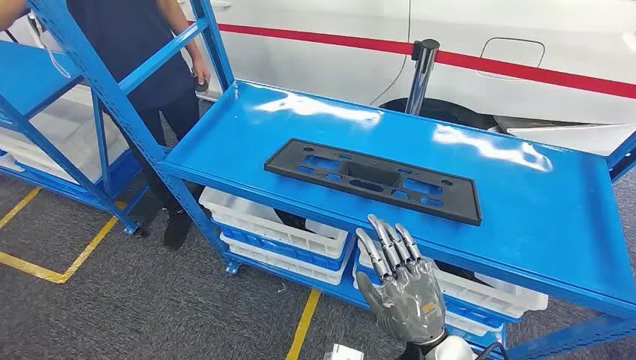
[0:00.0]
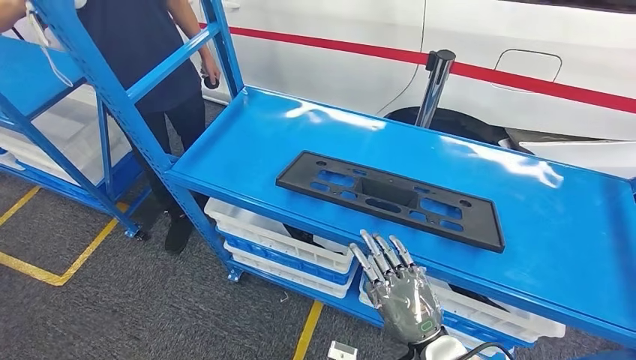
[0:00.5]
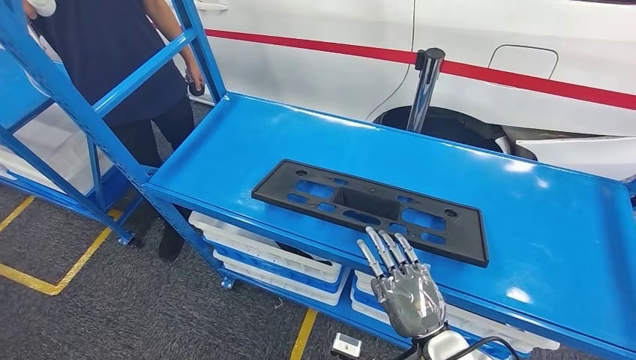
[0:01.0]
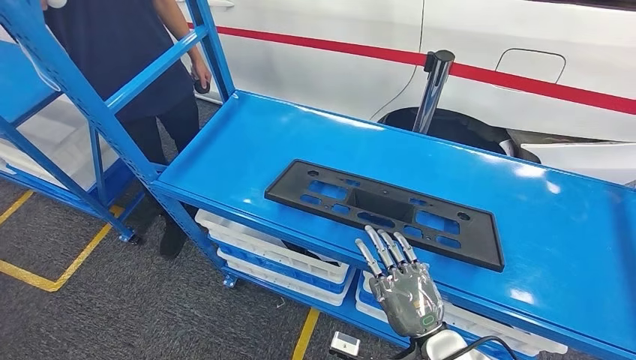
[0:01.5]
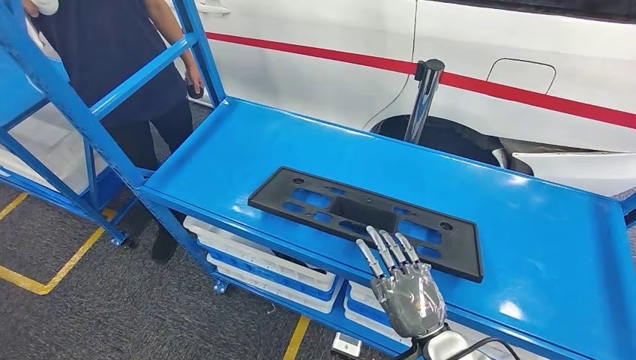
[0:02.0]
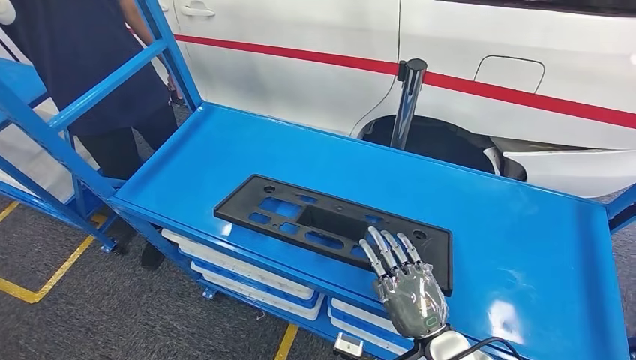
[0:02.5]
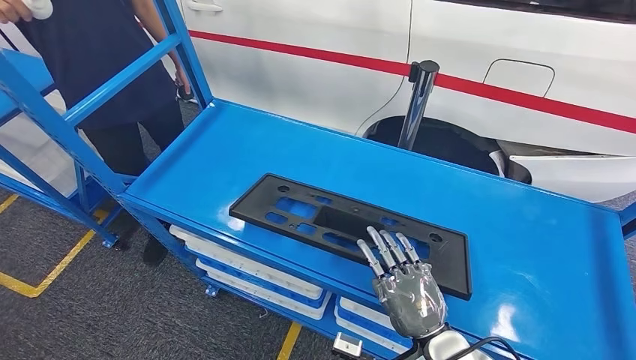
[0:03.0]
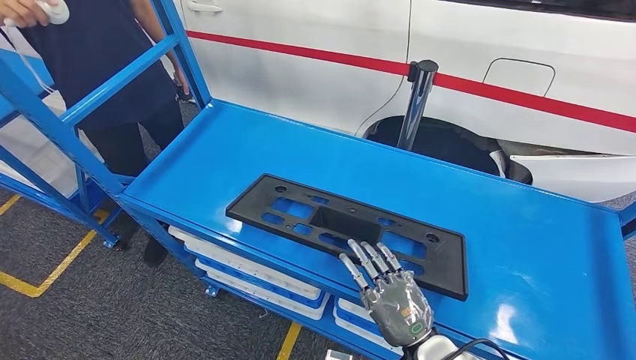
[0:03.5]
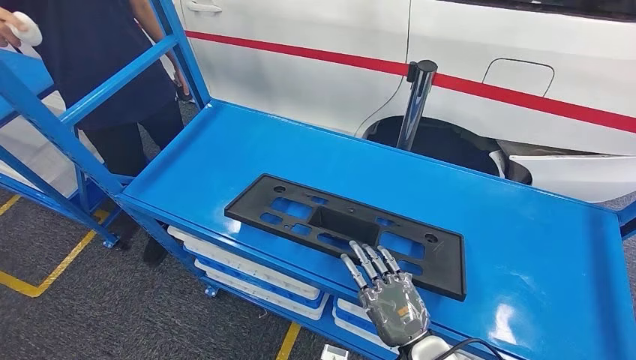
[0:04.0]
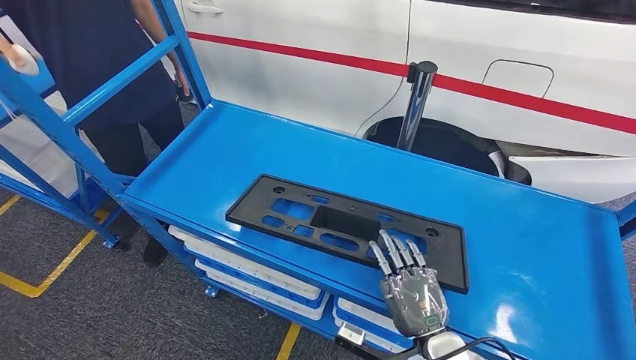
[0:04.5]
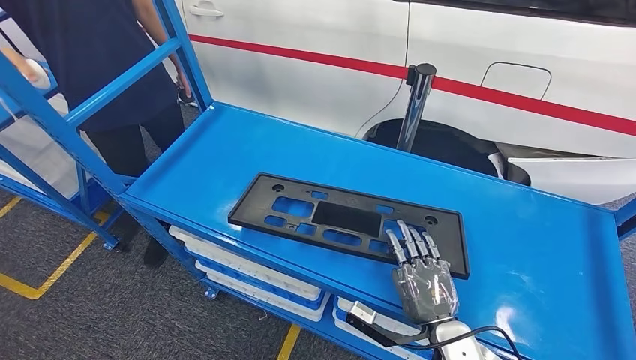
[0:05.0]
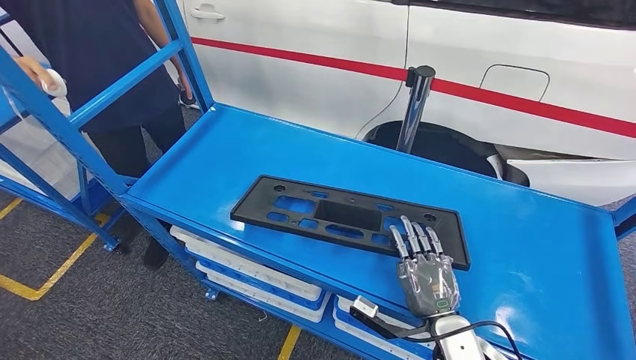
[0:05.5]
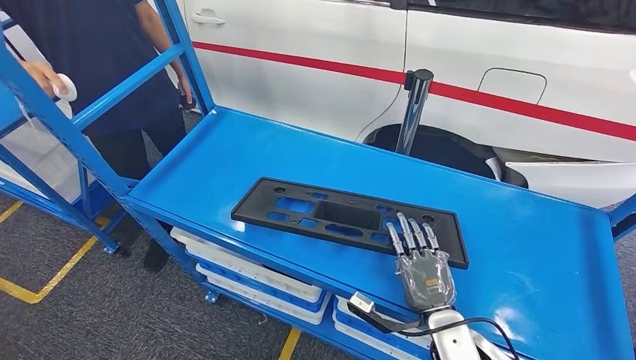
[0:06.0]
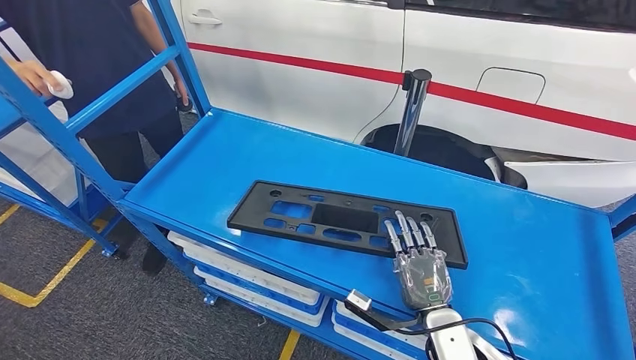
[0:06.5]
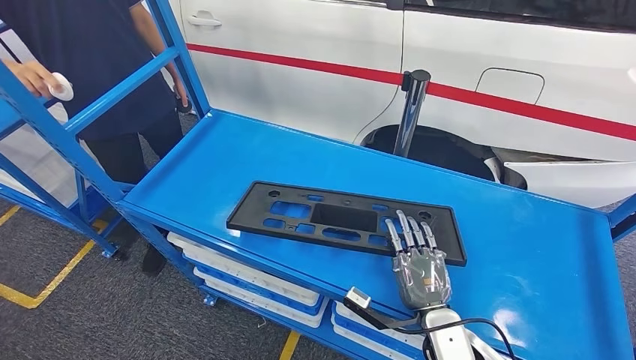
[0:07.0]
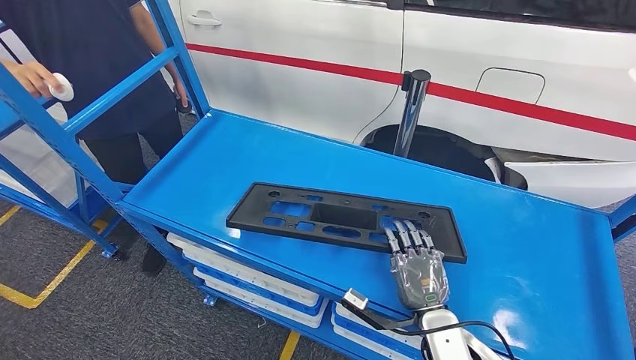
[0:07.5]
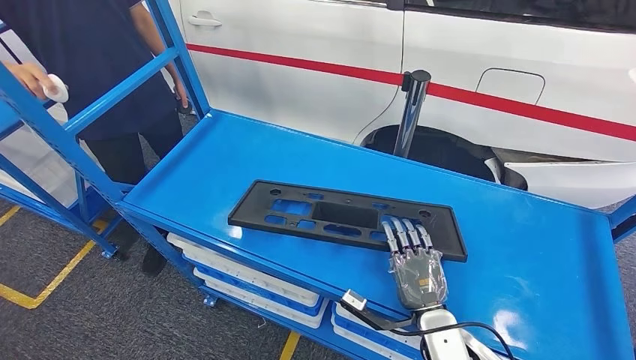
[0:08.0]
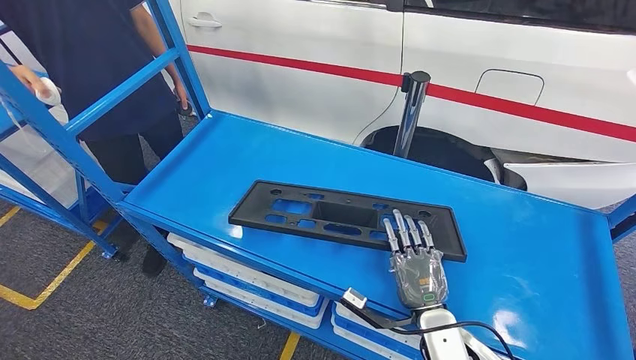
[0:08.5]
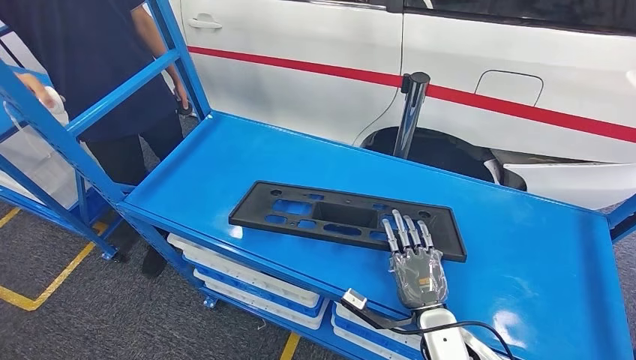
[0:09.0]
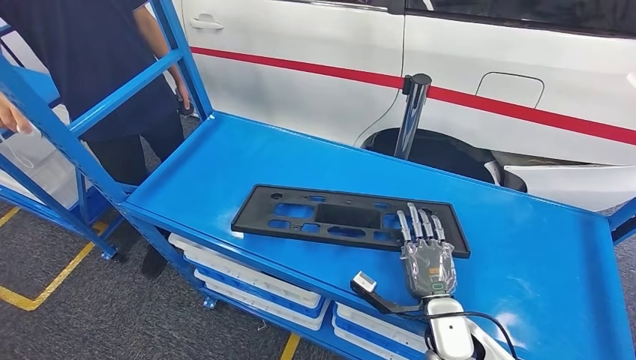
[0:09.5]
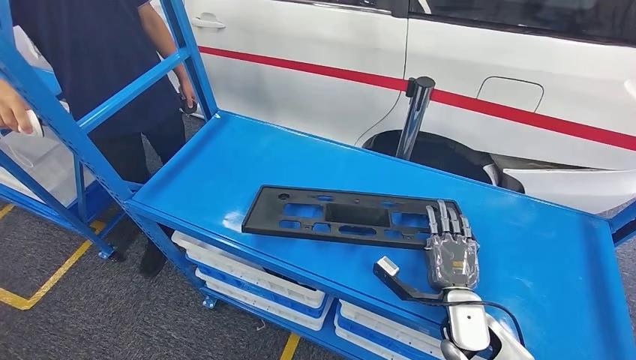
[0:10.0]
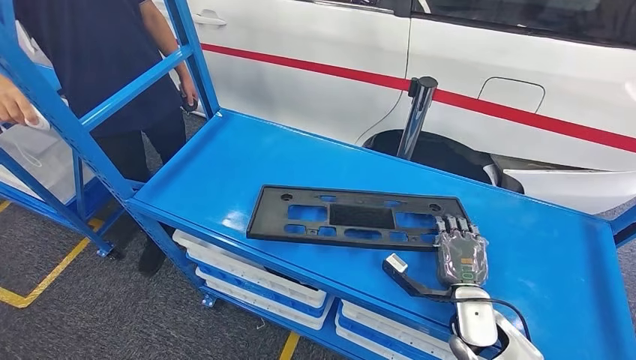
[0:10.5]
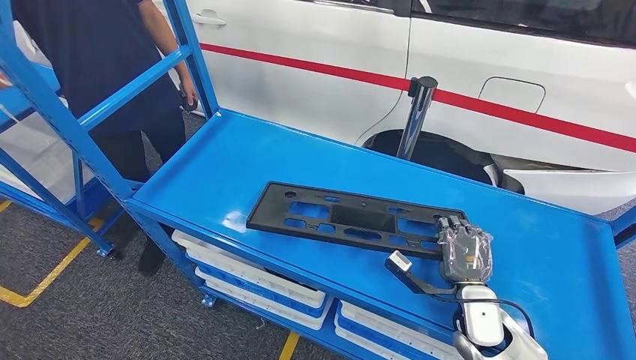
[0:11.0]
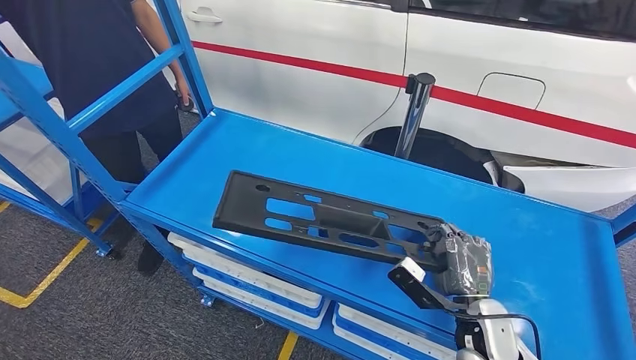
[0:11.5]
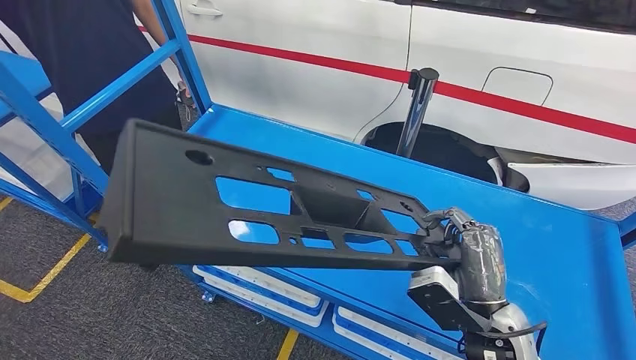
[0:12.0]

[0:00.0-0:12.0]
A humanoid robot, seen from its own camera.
0:06.0 to 0:08.0: There are only small adjustments of the hands.

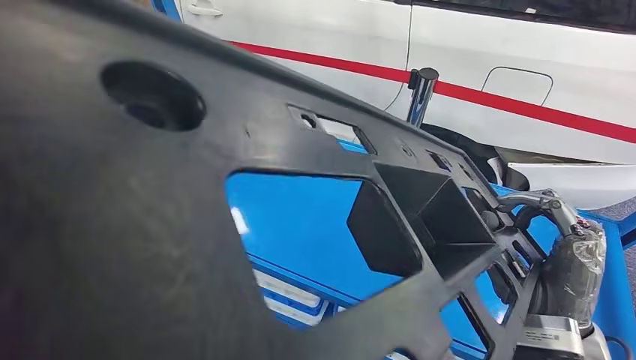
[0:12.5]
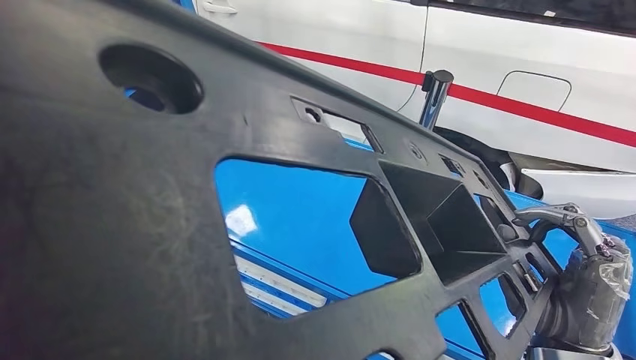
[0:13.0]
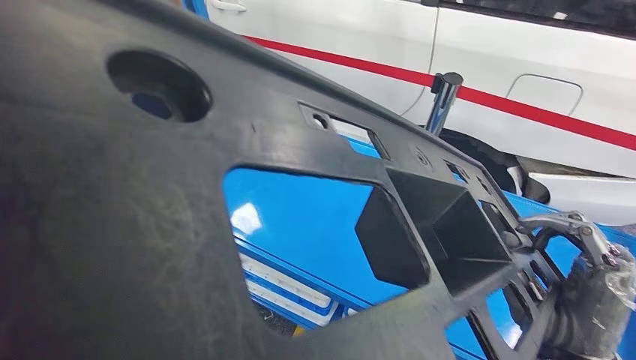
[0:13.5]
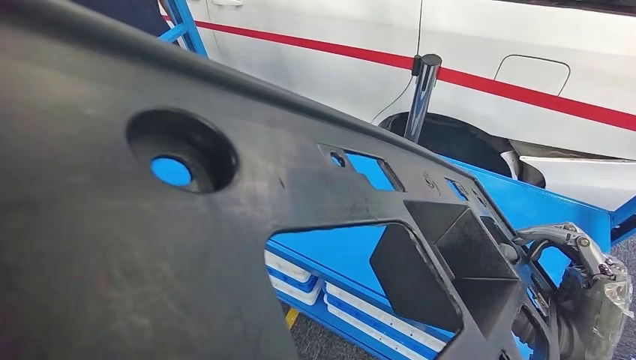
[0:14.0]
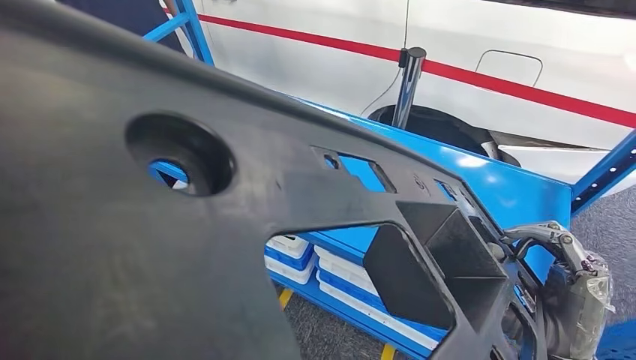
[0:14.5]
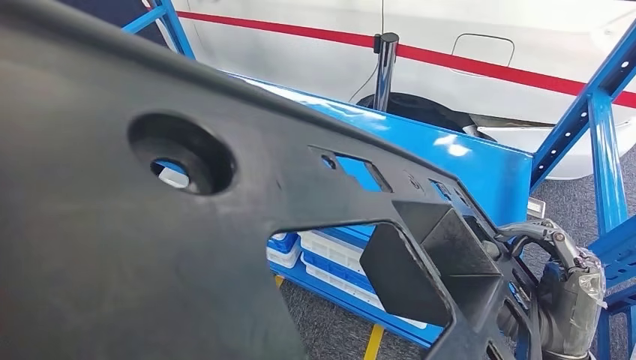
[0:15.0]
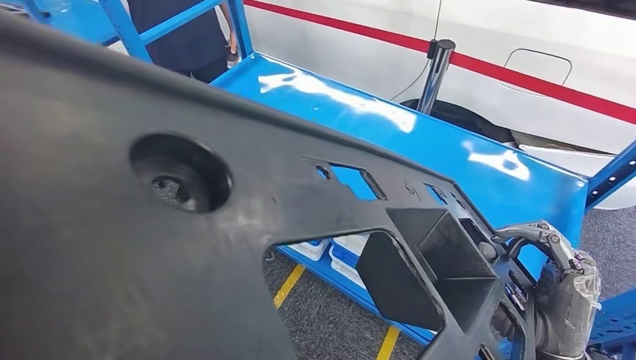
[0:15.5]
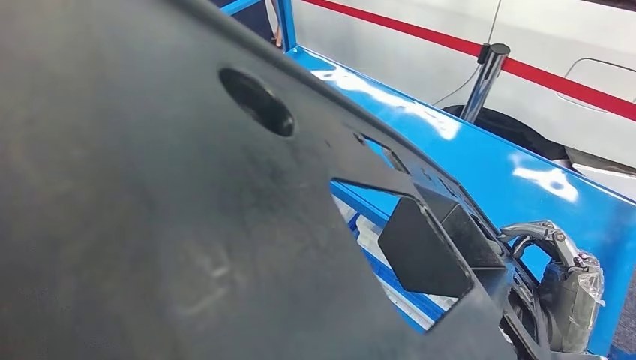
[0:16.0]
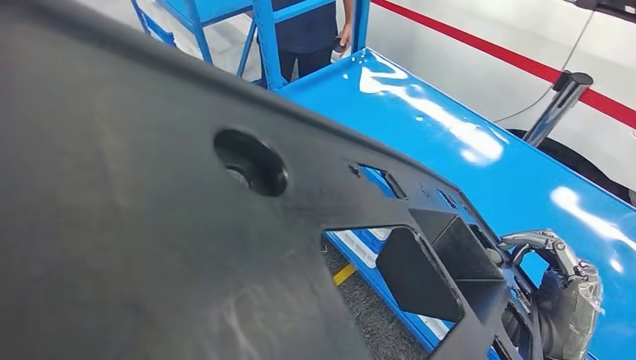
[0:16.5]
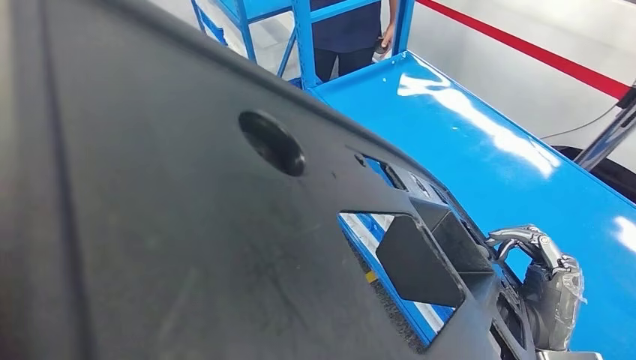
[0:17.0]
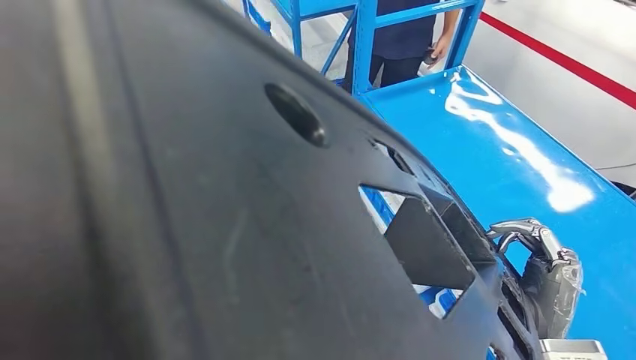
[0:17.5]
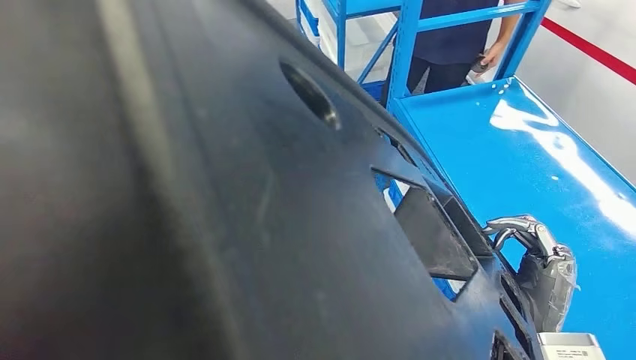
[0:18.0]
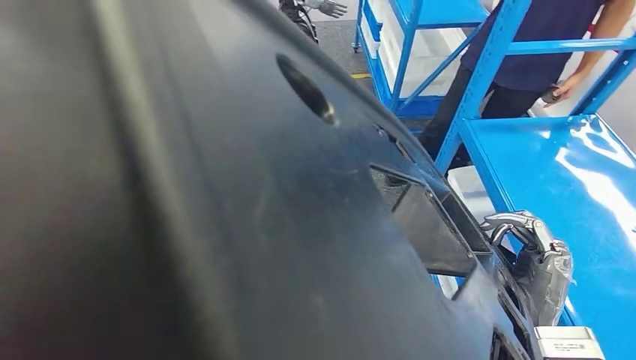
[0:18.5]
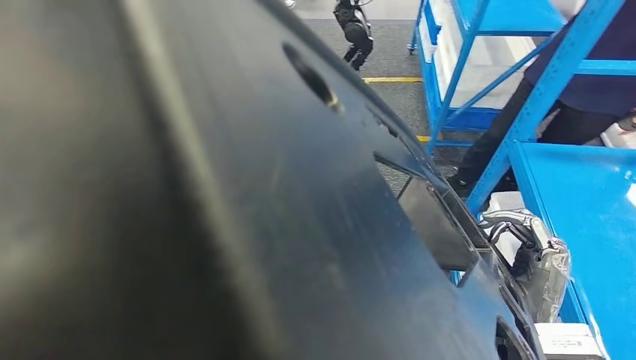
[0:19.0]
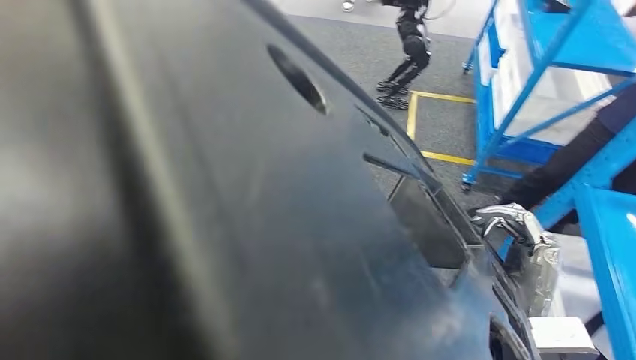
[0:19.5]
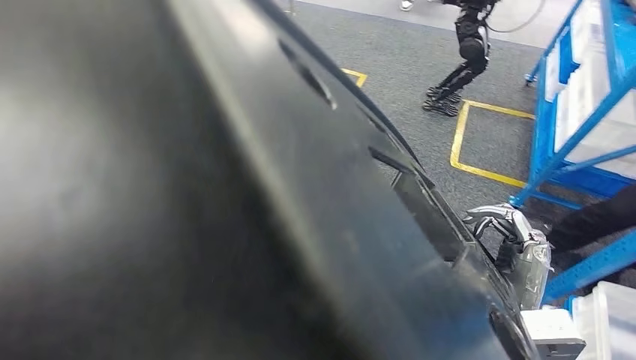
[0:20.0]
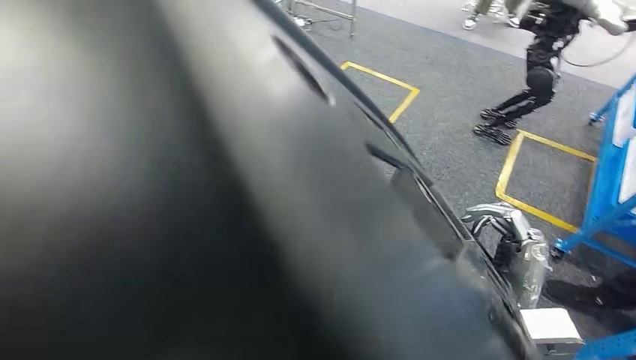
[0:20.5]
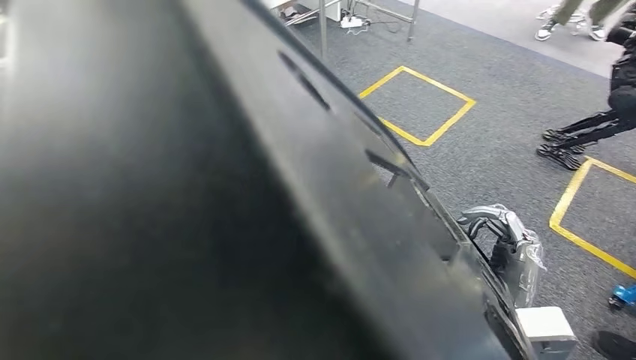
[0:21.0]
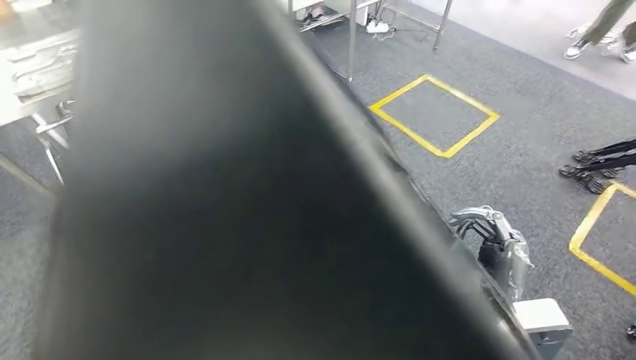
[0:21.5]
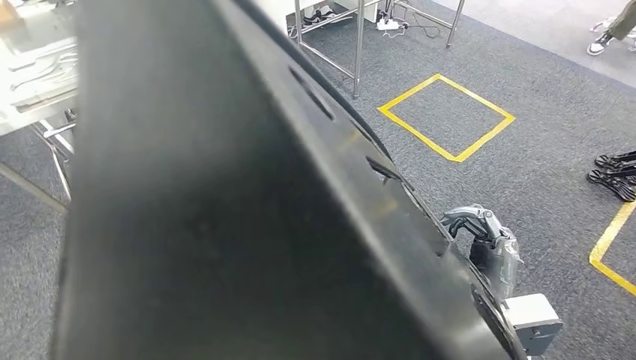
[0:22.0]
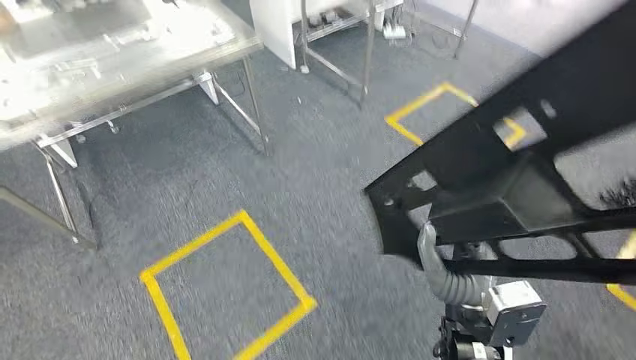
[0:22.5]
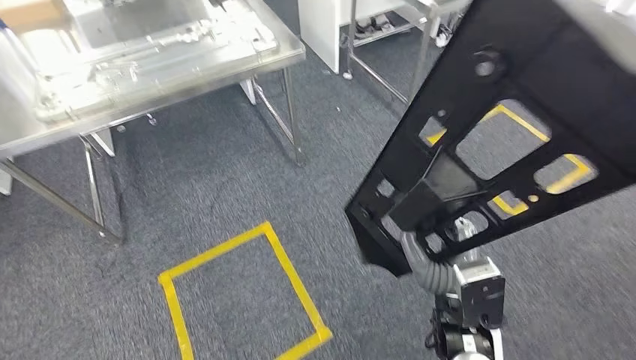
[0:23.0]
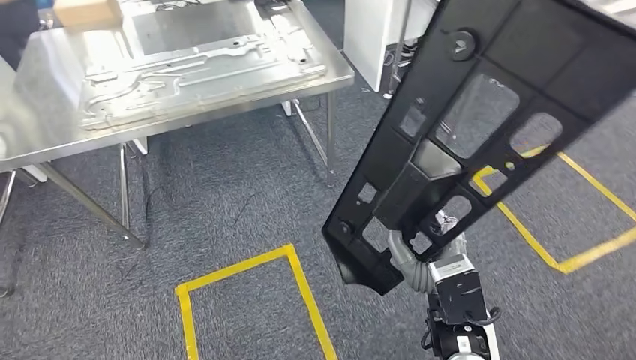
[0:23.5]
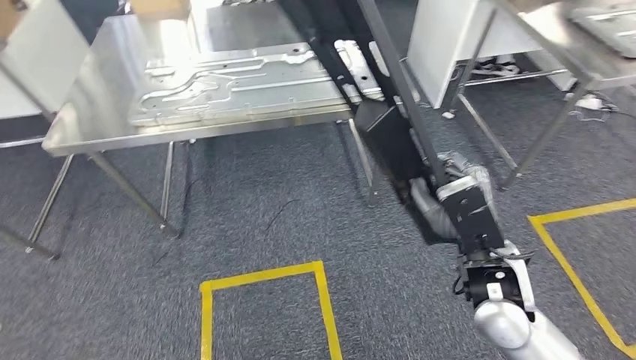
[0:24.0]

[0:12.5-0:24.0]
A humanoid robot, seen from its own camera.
Step, 0:12.5 to 0:15.0: Pick up the large material from the shelf.
